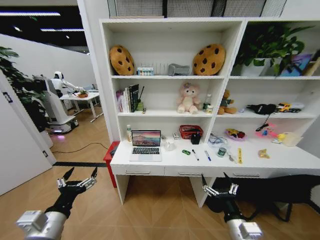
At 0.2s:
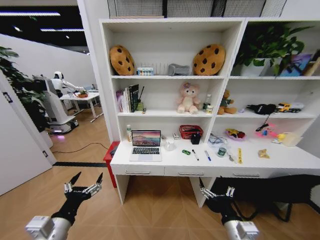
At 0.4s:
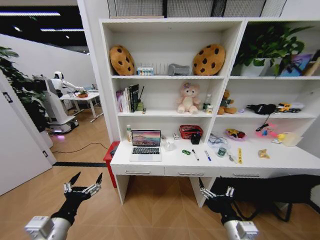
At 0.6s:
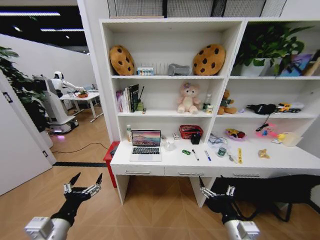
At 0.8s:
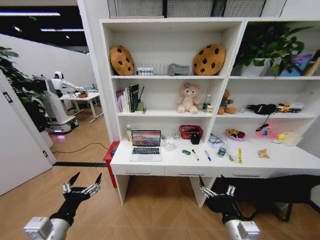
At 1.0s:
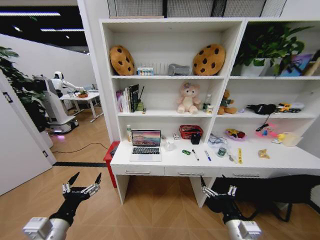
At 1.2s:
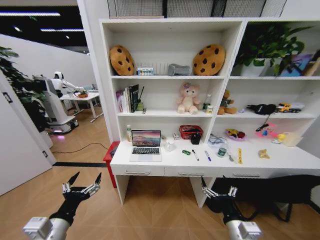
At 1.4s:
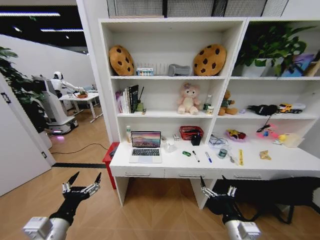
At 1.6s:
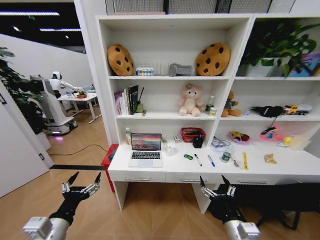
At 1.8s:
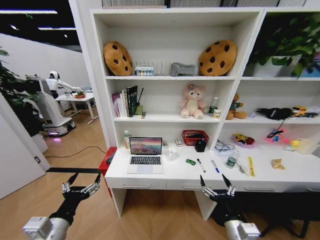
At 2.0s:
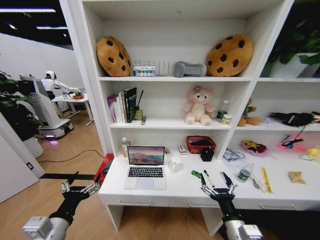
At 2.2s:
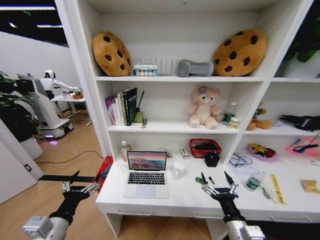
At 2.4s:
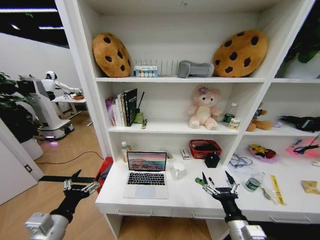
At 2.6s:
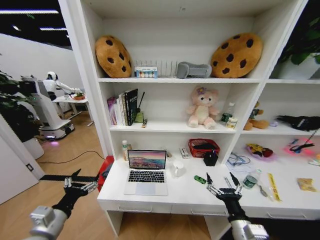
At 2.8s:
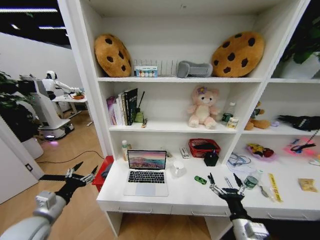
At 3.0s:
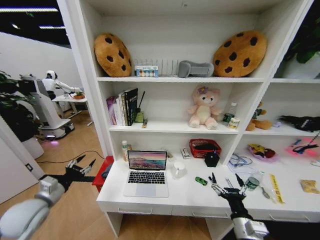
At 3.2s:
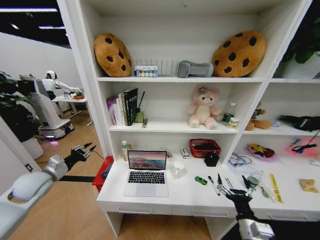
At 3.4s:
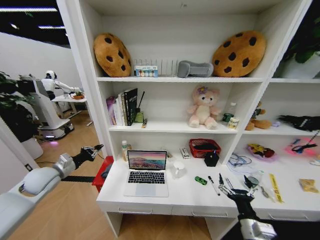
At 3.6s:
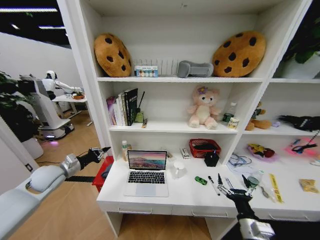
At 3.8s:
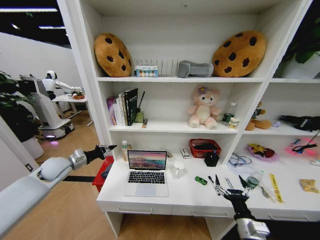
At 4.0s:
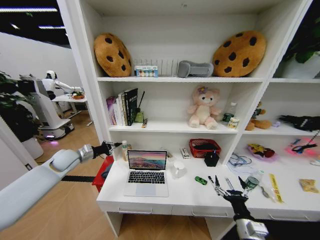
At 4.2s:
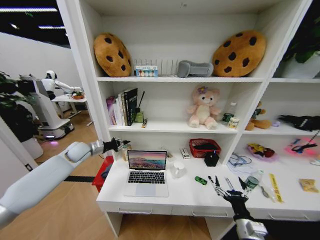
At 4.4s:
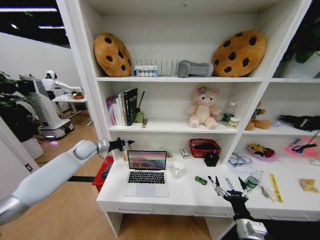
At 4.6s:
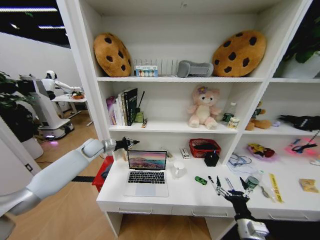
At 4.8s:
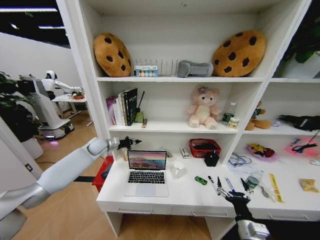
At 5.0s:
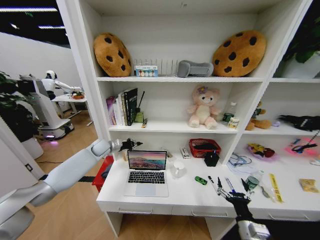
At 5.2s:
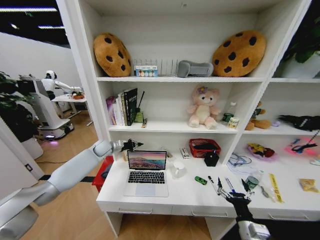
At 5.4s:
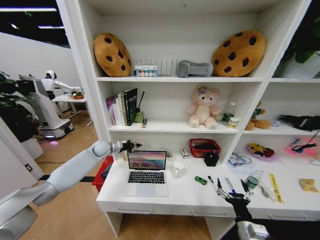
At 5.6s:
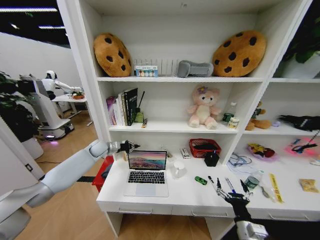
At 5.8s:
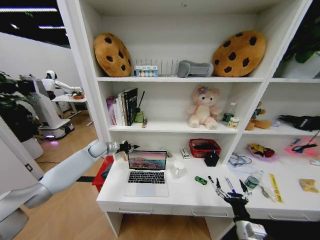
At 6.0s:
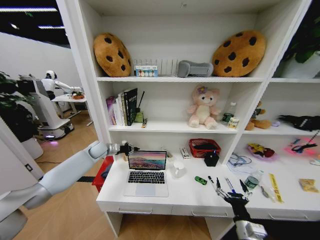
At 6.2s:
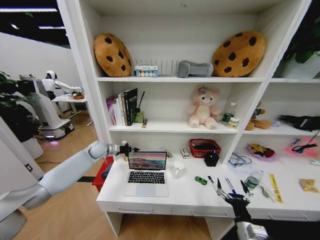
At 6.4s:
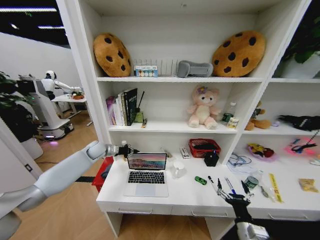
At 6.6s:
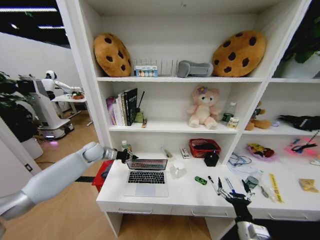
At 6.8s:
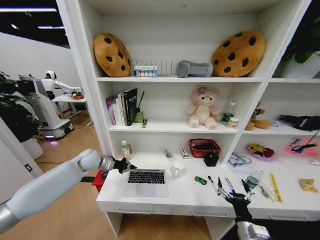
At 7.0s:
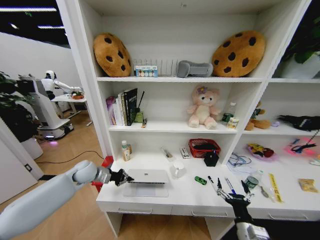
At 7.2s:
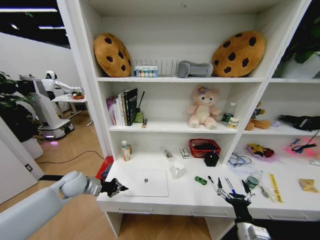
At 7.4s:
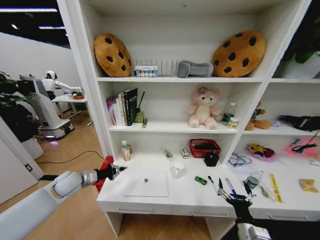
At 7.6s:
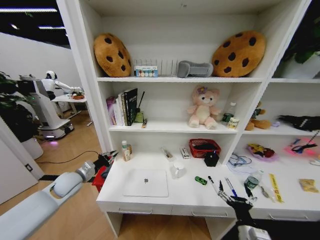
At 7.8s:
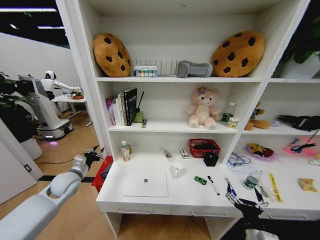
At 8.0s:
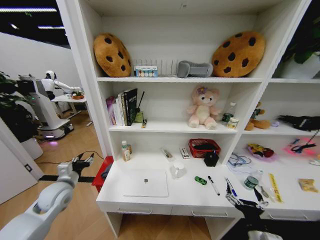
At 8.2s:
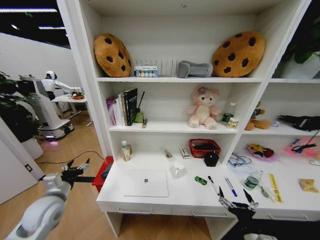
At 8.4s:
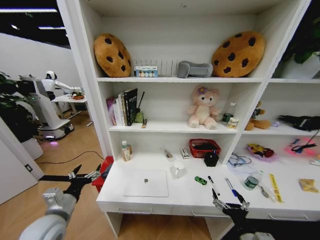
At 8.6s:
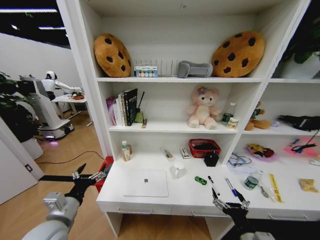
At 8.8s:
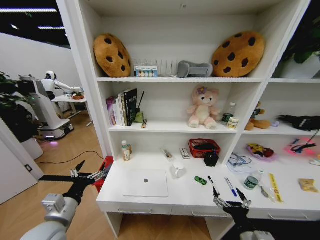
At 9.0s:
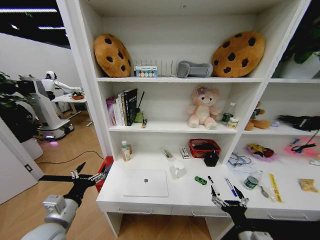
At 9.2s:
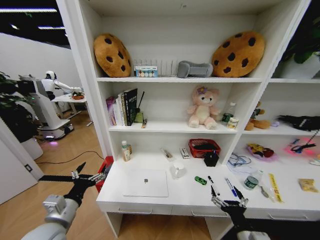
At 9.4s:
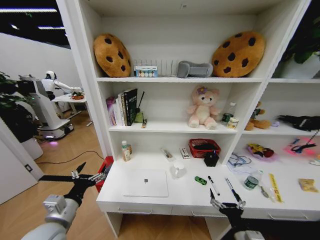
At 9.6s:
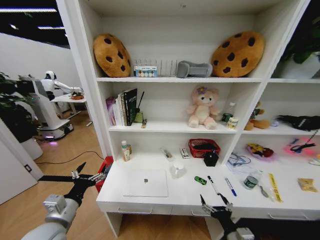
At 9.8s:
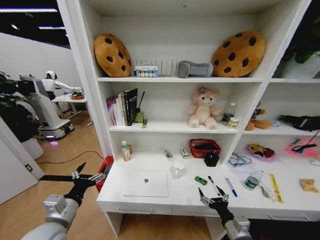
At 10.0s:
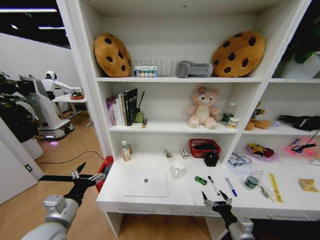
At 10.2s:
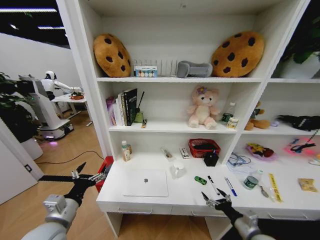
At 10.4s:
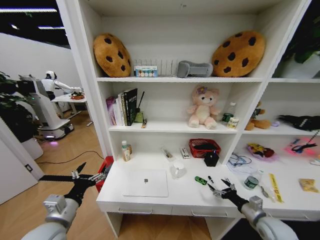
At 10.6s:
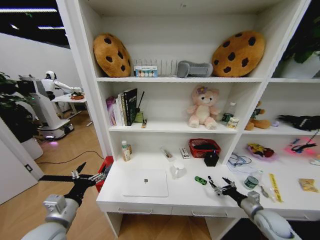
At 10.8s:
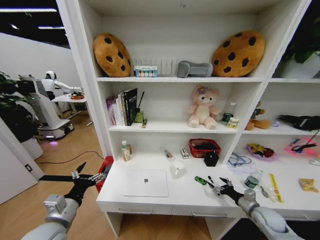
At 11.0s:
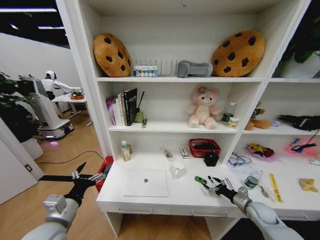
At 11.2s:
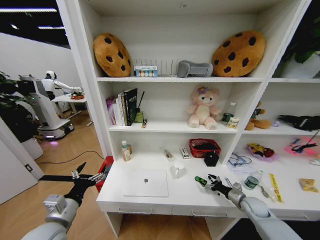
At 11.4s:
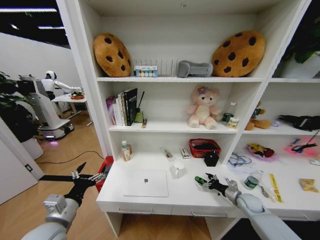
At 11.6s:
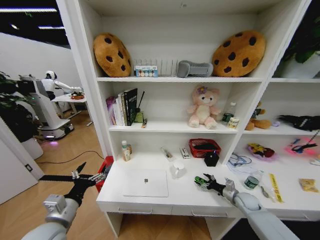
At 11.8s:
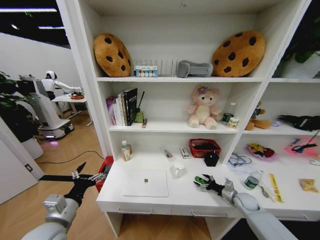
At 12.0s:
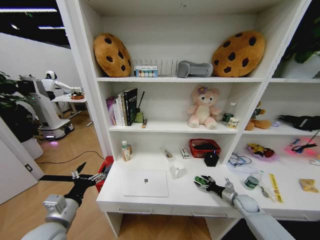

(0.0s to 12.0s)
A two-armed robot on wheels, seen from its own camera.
Task of the whole recording: Organize the objects on the table.
1.6s - 3.0s: The left gripper goes about 20 cm forward and to the left, and closes.
3.0s - 4.4s: The left gripper goes about 25 cm forward, and closes its fingers.
4.4s - 6.0s: The left gripper changes place by approximately 5 cm.
6.0s - 7.6s: The left gripper travels backward by roughly 20 cm.
7.6s - 9.0s: The right gripper ends up roughly 5 cm from where it was. The left gripper is displaced backward by roughly 20 cm, and opens its fingers.
9.0s - 10.4s: The right gripper shifts about 20 cm to the right and forward.
10.4s - 12.0s: The right gripper shifts some 15 cm forward and downward.

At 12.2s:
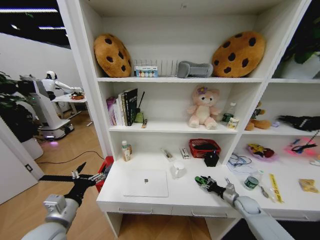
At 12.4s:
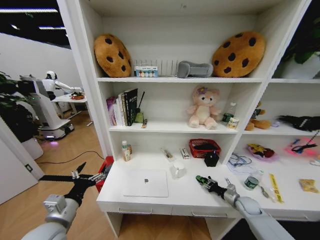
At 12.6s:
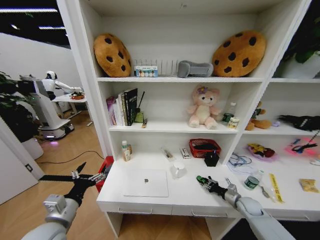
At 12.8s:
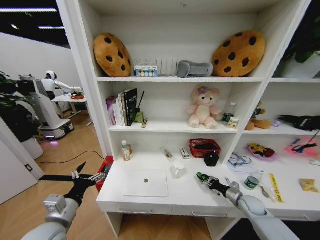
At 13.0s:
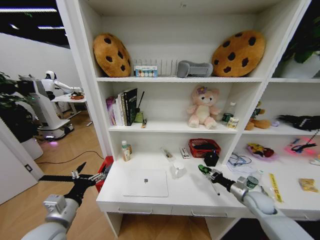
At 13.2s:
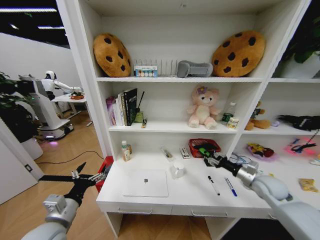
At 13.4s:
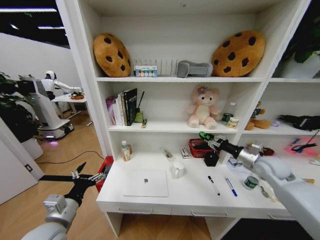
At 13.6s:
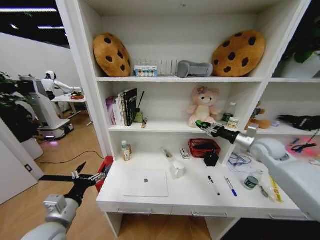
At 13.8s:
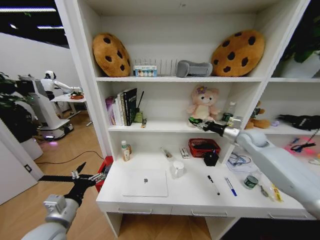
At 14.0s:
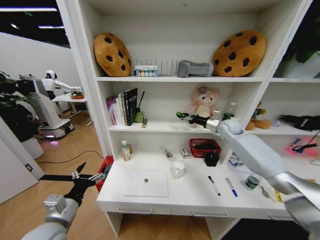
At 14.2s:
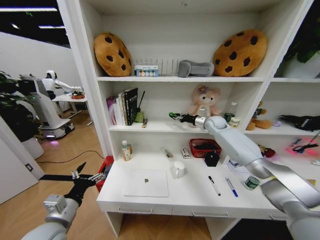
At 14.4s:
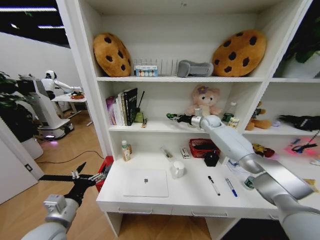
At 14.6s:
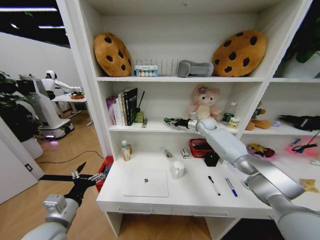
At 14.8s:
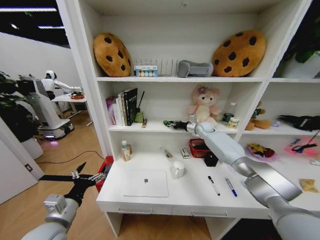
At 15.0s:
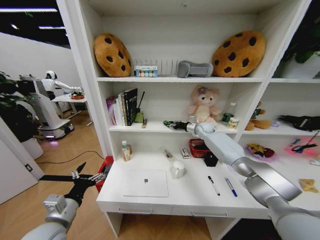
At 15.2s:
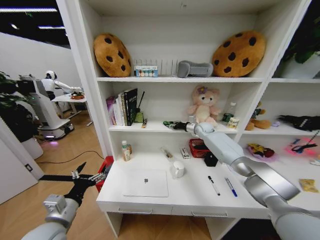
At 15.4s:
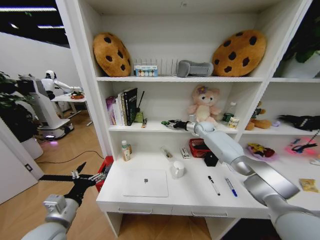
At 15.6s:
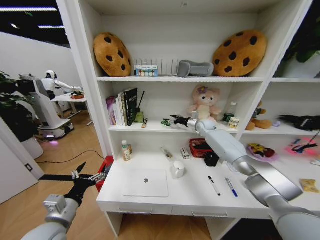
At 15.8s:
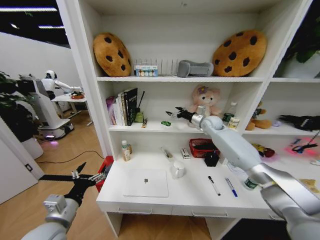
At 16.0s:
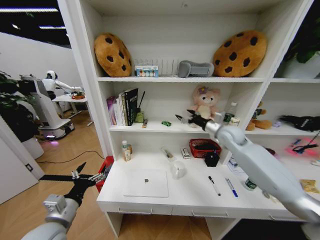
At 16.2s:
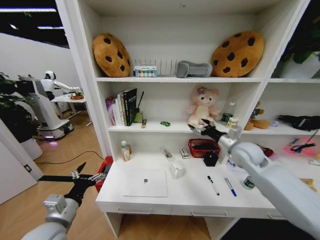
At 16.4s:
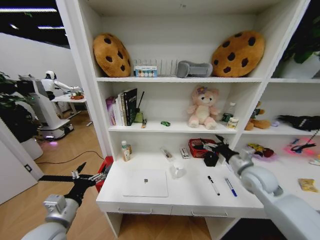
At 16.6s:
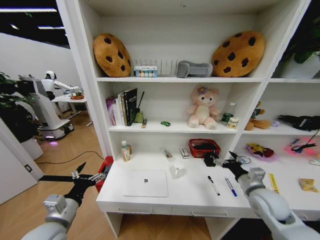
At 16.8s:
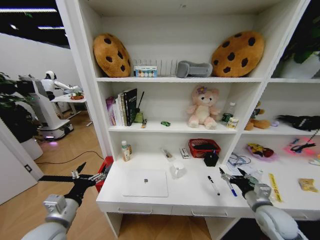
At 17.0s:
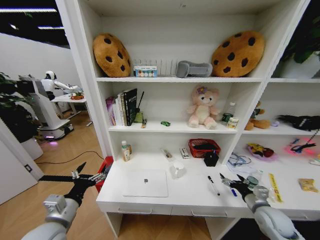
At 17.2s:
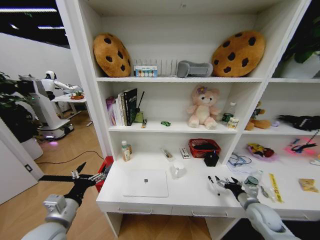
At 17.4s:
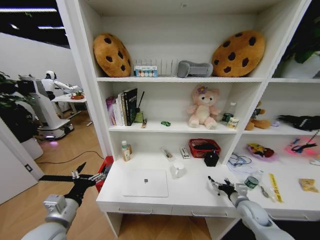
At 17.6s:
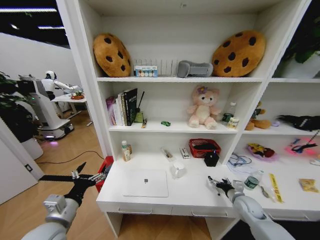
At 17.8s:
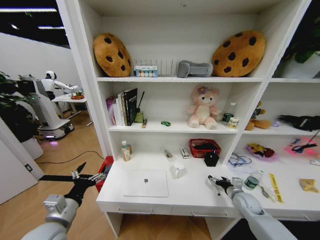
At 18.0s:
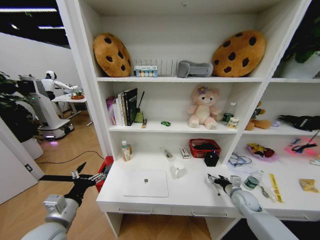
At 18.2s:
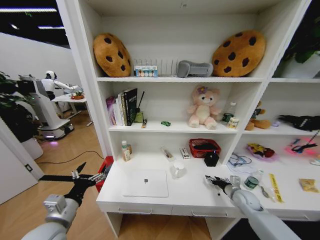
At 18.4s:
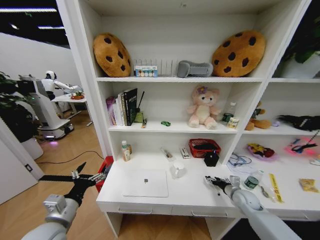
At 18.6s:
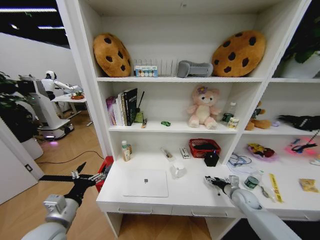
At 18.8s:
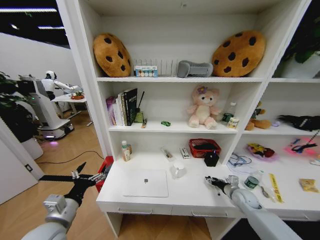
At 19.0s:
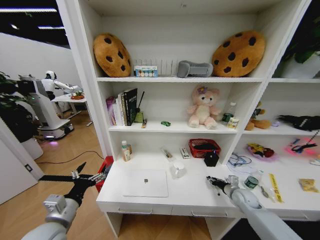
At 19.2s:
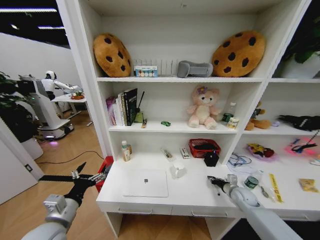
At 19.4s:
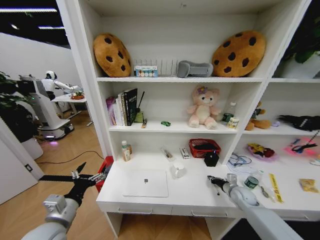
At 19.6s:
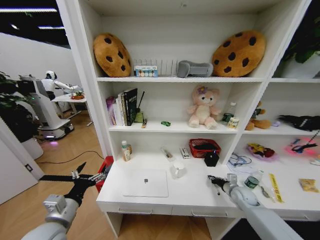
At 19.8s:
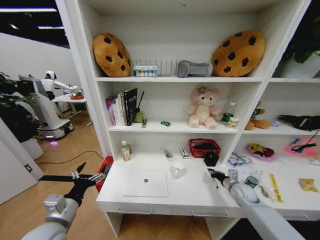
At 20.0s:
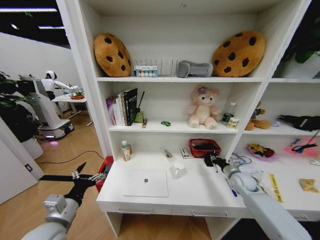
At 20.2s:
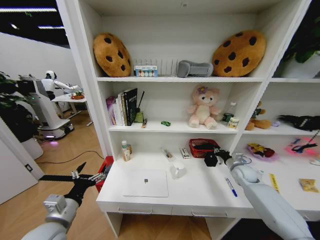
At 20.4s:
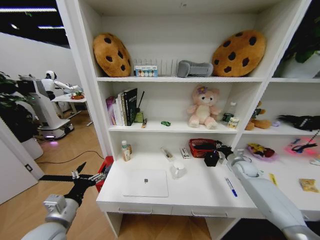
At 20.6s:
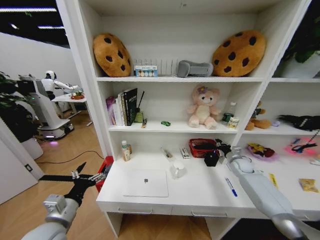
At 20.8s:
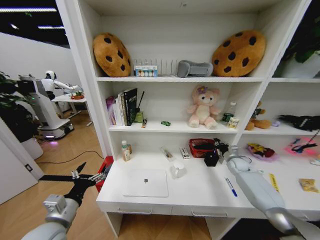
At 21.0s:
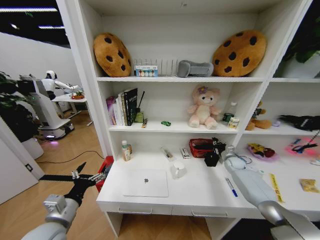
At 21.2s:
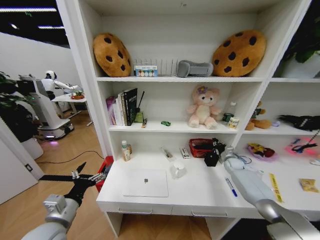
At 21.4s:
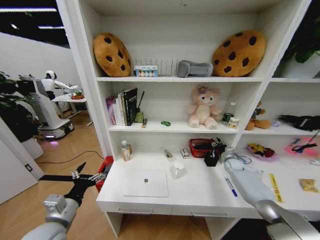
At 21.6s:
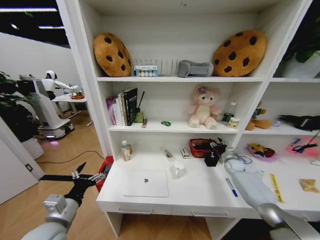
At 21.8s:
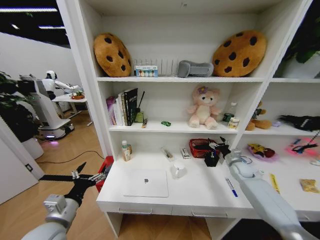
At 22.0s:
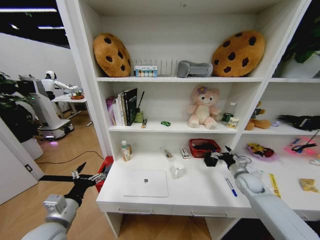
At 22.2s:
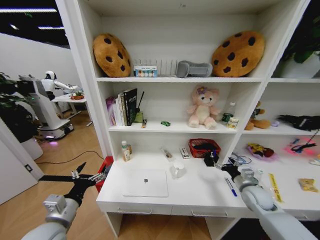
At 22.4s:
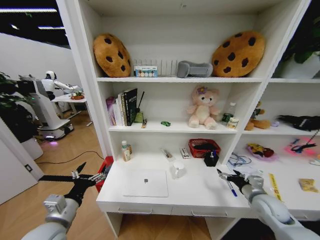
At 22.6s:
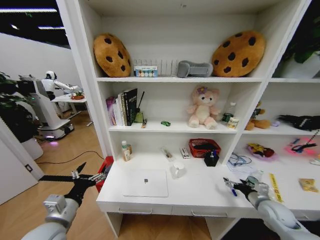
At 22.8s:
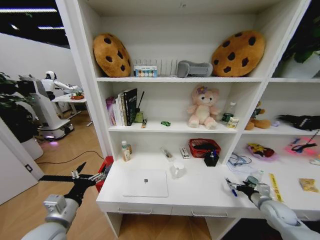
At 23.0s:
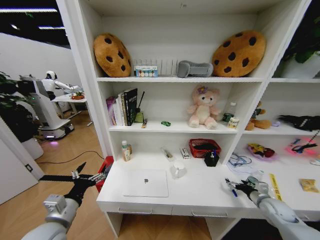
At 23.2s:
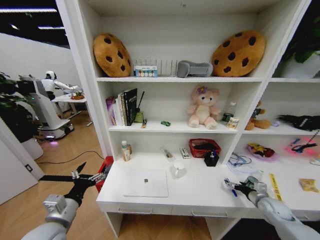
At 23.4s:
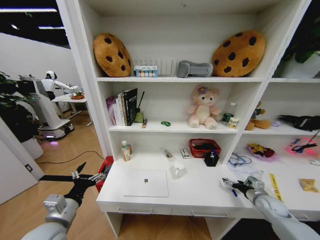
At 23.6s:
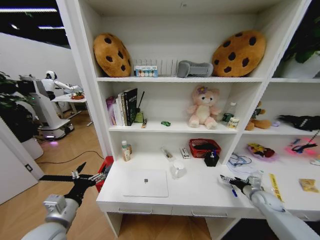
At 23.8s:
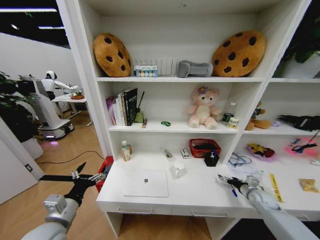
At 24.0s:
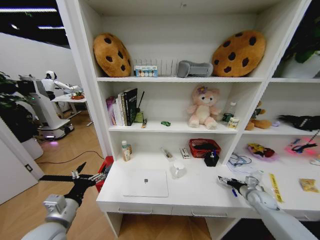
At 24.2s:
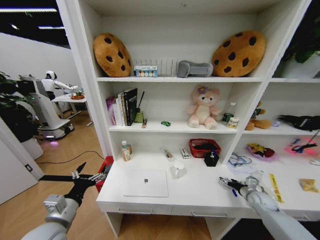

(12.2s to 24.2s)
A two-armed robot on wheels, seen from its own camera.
Task of the whole recording: Organize the objects on the table.
12.2s - 13.8s: The right gripper goes some 35 cm upward and forward.
13.8s - 15.2s: The right gripper heads forward and to the left, covering about 20 cm.
15.2s - 16.6s: The right gripper travels backward by about 40 cm, and opens its fingers.
16.6s - 18.2s: The right gripper travels downward and forward by some 15 cm.
18.2s - 19.8s: The right gripper closes its fingers.
19.8s - 21.2s: The right gripper travels forward by about 15 cm.
21.2s - 22.6s: The right gripper goes some 25 cm backward, and opens up.
22.6s - 24.2s: The right gripper goes some 10 cm downward and forward.
